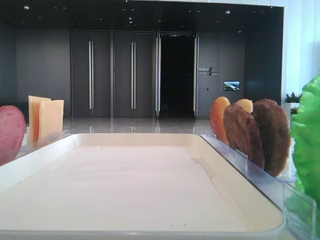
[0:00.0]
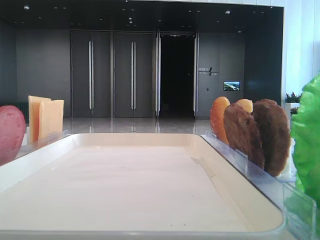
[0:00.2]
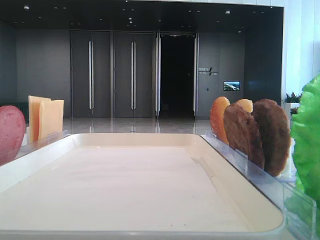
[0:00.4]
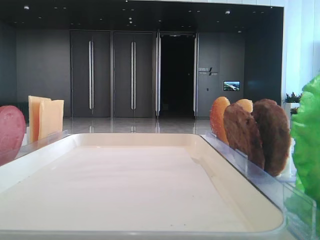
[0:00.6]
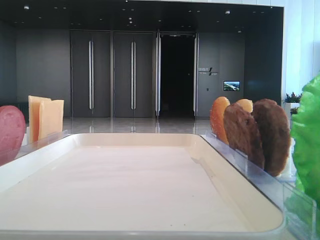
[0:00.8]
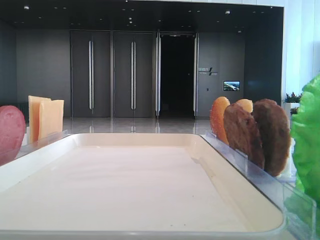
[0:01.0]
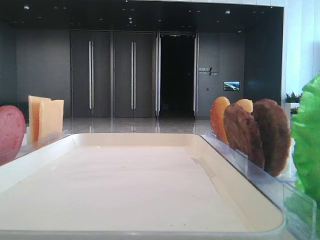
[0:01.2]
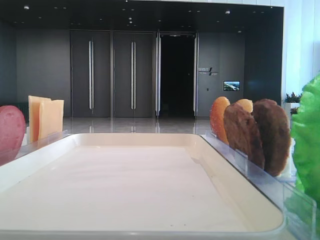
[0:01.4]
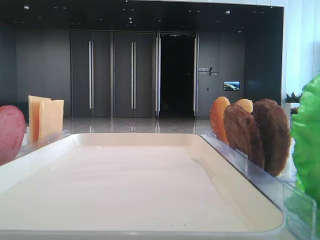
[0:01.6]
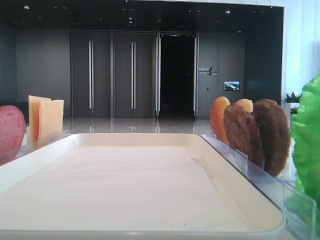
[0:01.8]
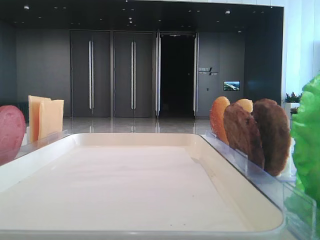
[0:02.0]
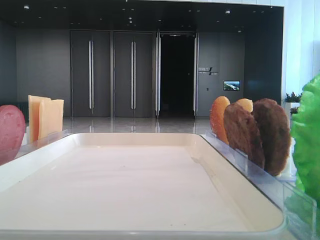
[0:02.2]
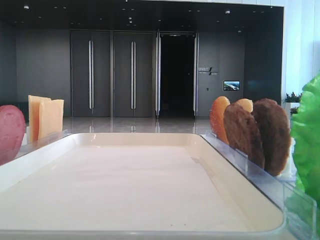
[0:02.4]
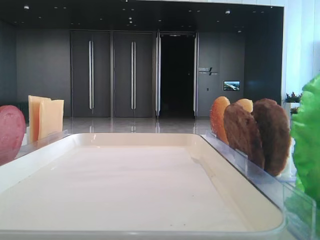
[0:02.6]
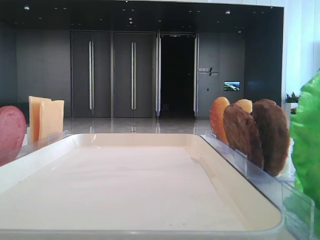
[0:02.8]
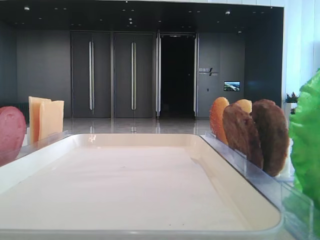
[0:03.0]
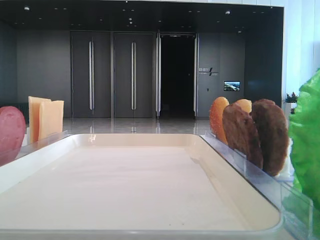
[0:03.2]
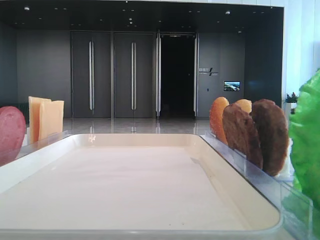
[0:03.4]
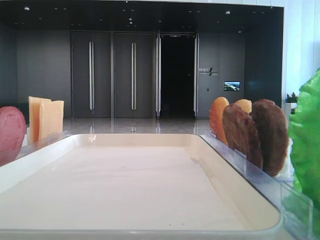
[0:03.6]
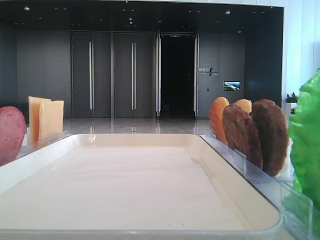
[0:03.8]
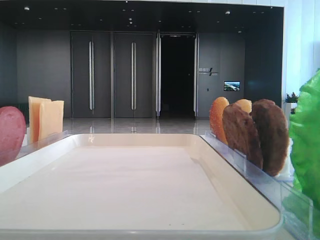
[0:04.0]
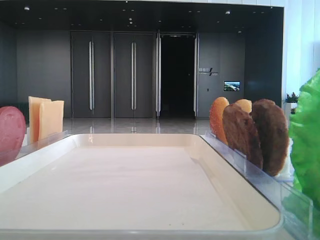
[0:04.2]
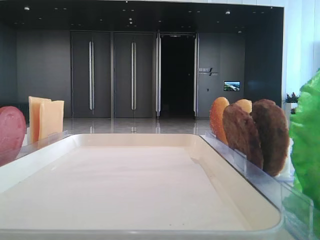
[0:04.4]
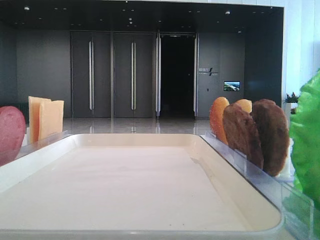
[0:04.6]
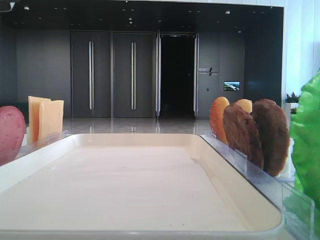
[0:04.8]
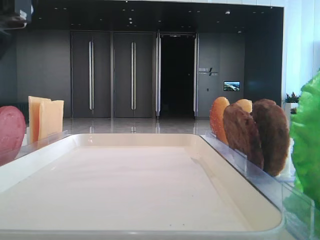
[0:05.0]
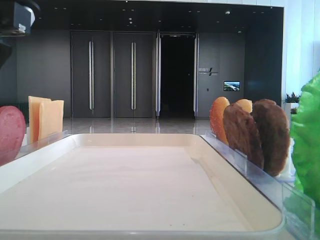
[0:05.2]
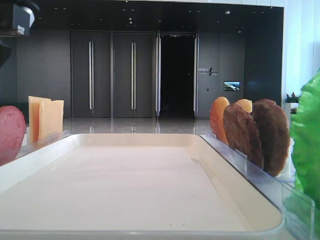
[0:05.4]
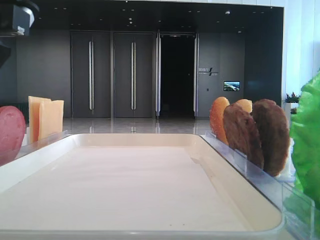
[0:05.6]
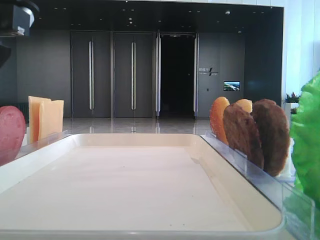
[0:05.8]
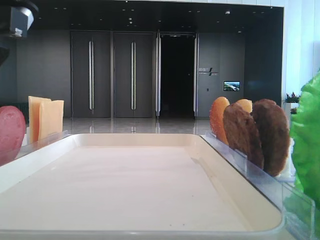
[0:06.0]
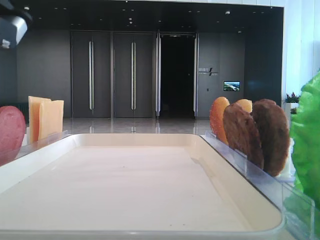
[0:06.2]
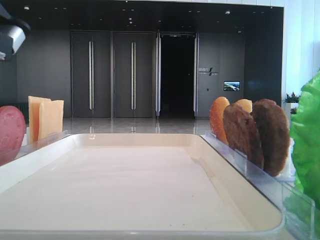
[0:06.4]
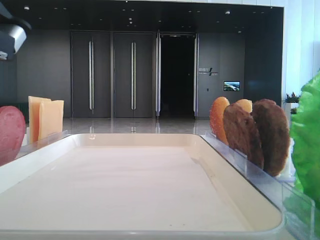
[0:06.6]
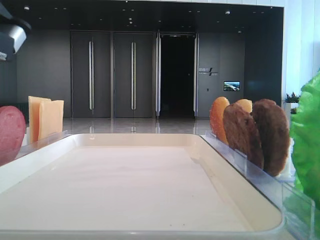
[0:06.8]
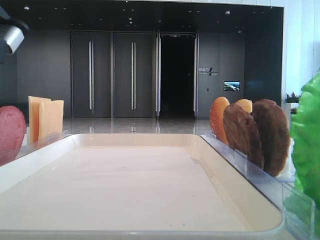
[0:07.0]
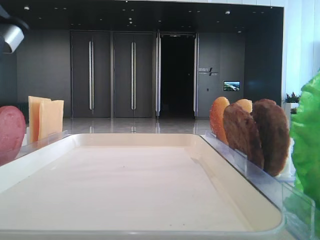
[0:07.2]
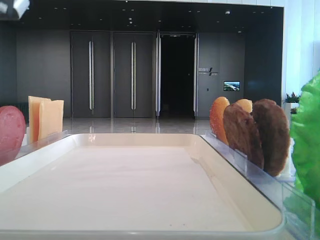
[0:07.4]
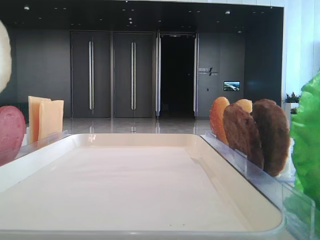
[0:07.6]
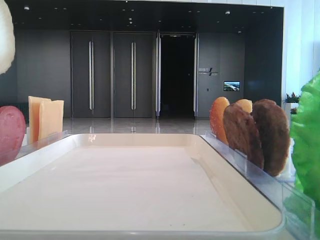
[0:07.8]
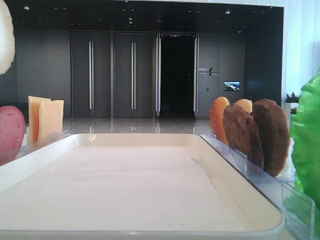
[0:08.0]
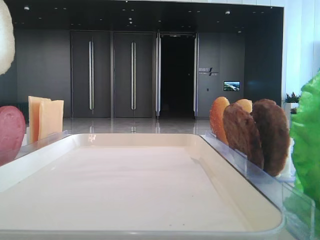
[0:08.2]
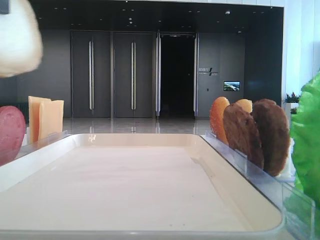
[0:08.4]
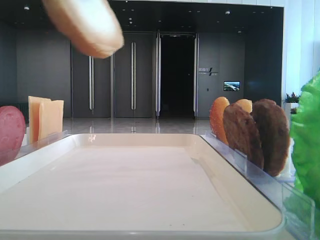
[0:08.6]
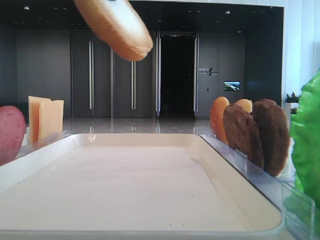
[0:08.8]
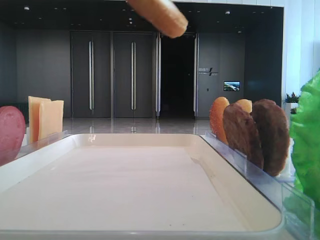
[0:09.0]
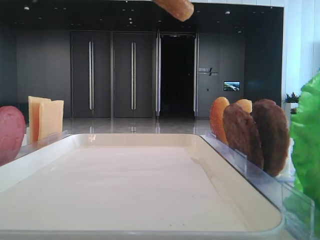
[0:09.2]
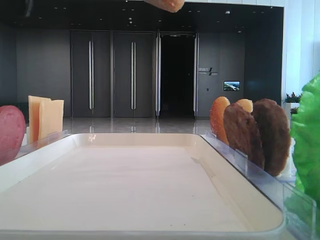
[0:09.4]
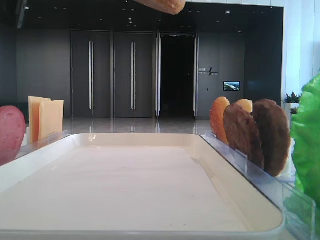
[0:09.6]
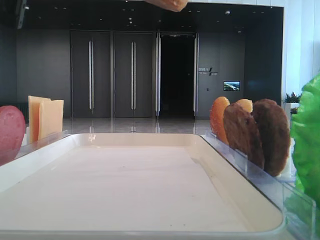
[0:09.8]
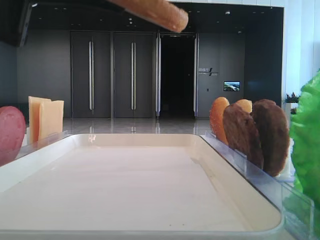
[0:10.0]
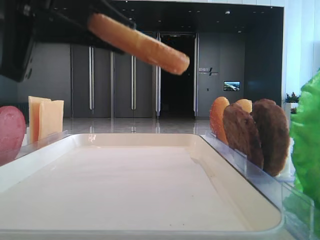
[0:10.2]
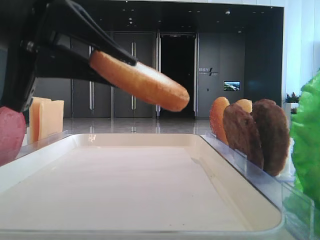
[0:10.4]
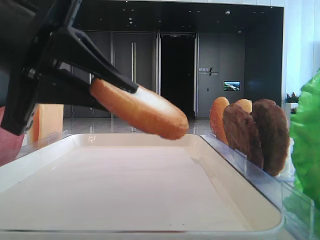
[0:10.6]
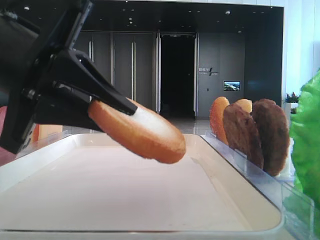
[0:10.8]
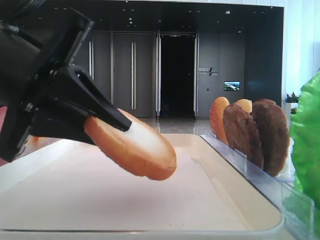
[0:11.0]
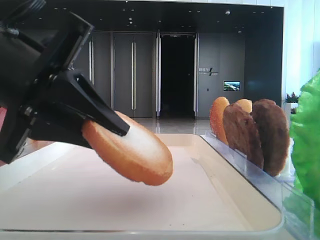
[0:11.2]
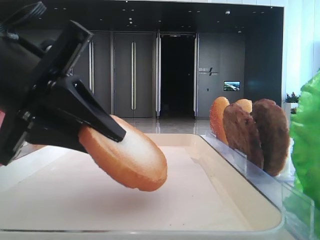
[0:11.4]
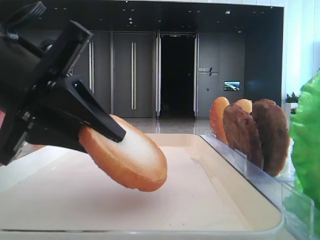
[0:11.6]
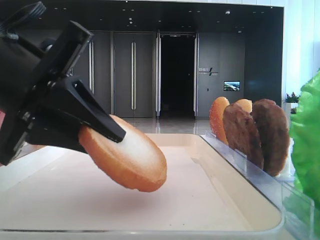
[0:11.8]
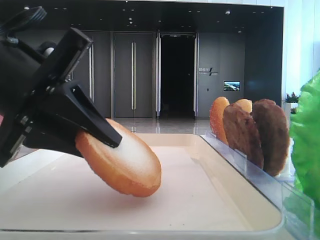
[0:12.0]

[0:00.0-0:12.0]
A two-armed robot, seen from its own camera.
Step, 0:00.0 to 0:07.0: Pick up the bottom bread with the left hand.
0:01.6 to 0:03.0: The left gripper heads forward and to the right, covering some 15 cm.
0:04.4 to 0:06.0: The grippers stay close to where they were, moving slightly.
0:06.0 to 0:07.6: The left gripper is displaced upward by some 10 cm, and closes its fingers.
0:07.6 to 0:09.0: The left gripper heads to the right, covering roughly 5 cm.
0:09.0 to 0:10.4: The left gripper travels downward by roughly 10 cm.

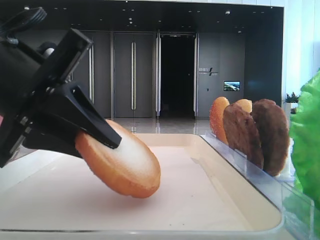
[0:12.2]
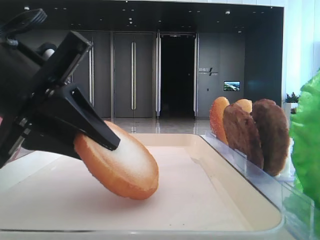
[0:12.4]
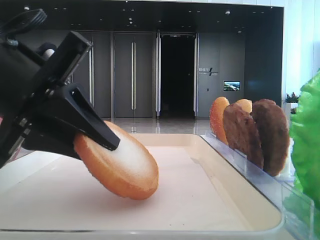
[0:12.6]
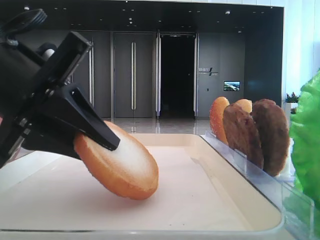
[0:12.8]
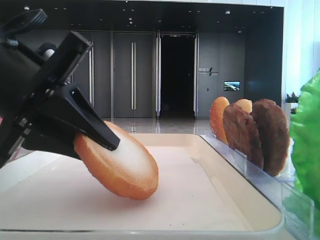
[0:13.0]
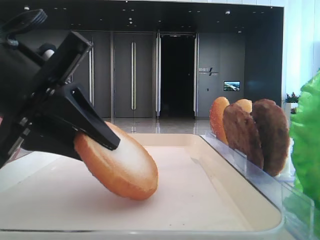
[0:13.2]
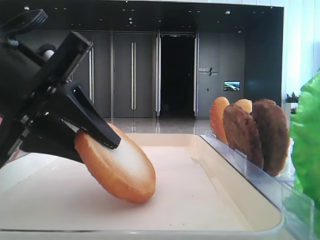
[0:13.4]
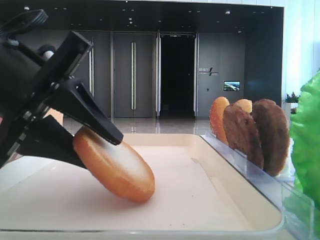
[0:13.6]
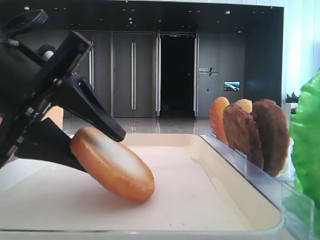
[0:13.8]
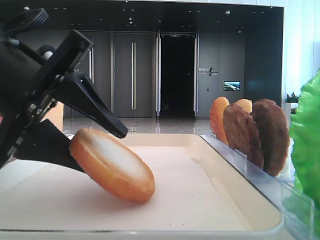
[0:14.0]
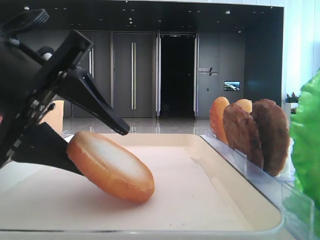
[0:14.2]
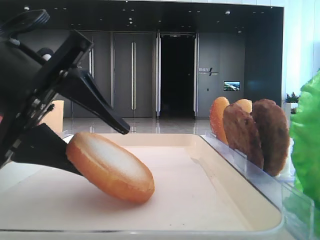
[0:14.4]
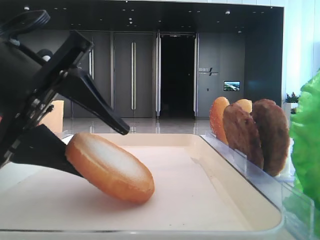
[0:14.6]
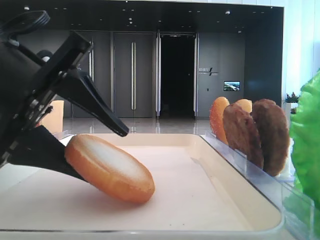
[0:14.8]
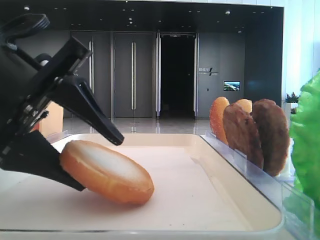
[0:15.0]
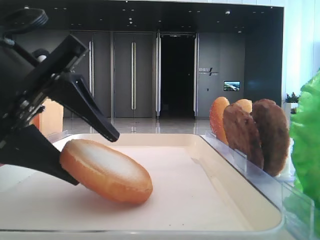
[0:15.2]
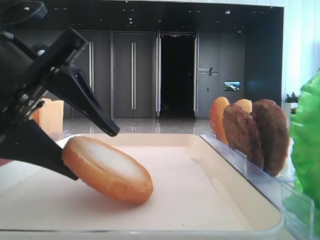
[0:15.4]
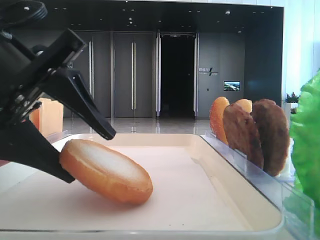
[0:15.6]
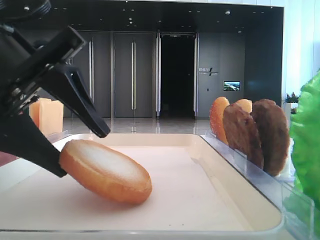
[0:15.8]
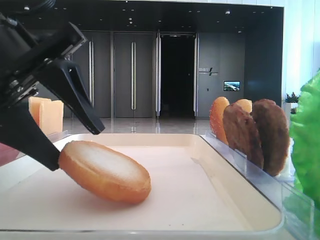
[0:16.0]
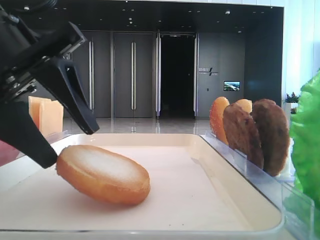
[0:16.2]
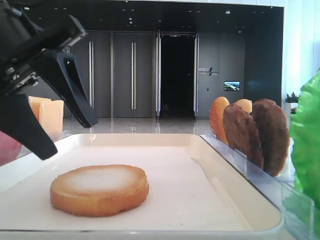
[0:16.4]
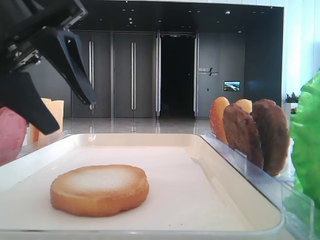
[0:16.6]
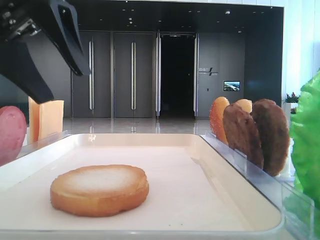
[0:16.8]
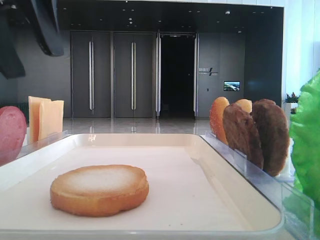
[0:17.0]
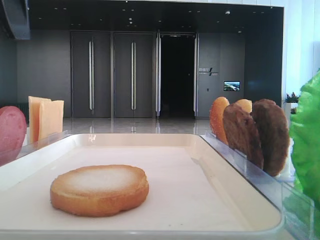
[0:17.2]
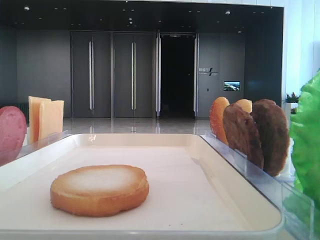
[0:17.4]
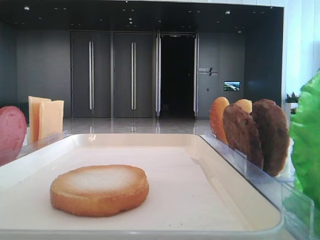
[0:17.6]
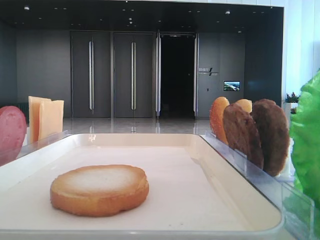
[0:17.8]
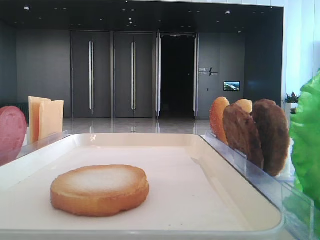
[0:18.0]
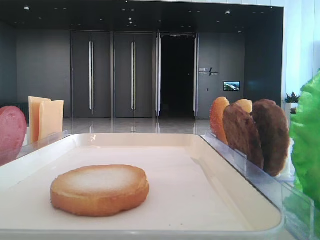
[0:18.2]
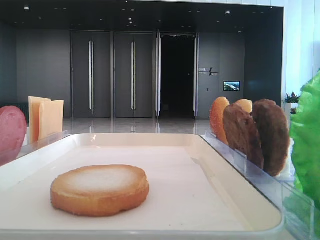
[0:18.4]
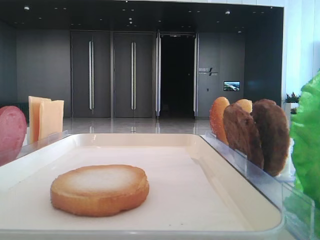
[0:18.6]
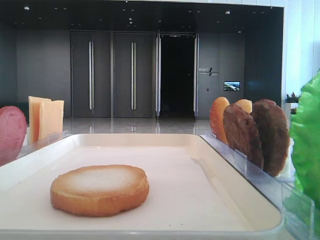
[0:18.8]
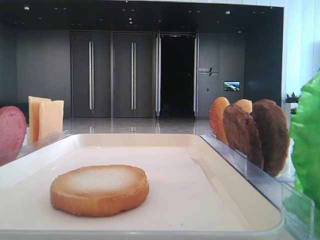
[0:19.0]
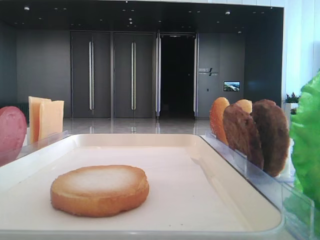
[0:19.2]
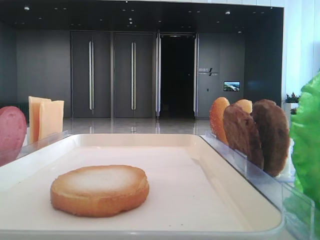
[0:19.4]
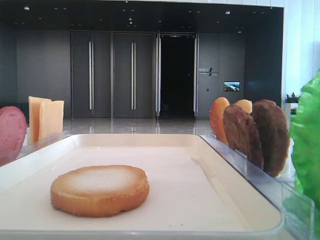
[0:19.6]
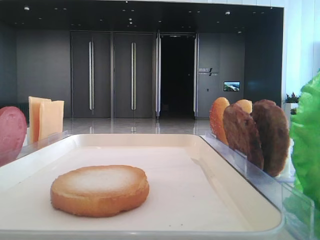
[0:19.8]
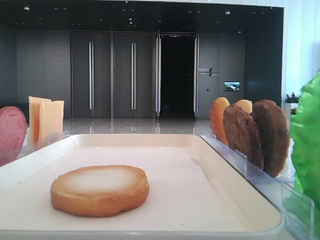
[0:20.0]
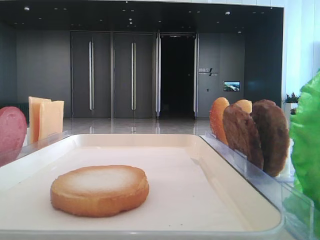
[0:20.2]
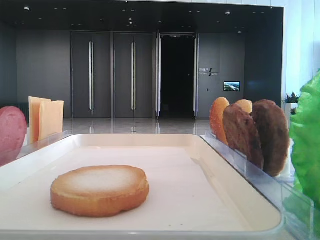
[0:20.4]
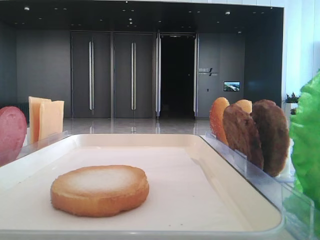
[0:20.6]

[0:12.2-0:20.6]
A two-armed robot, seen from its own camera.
Step, 0:12.2 to 0:16.2: Place the bread on the tray with the left hand.
0:12.2 to 0:13.6: The left gripper opens up.
0:13.6 to 0:15.0: The left gripper opens.
0:15.0 to 0:16.4: The left gripper changes place by approximately 5 cm.
0:16.4 to 0:17.8: The left gripper goes approximately 15 cm upward and to the left.

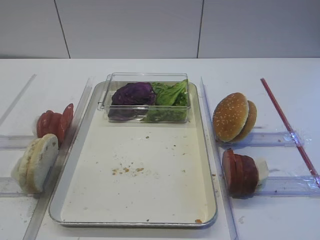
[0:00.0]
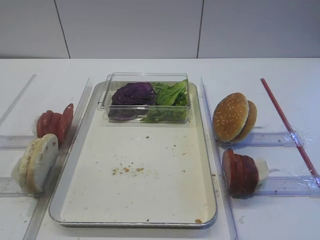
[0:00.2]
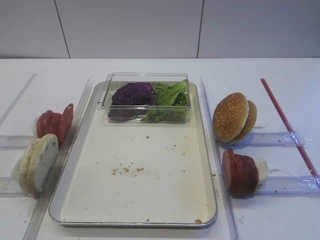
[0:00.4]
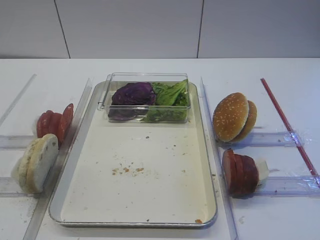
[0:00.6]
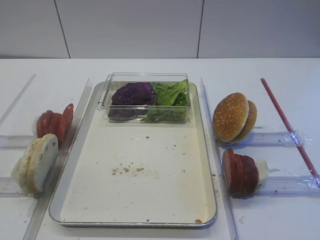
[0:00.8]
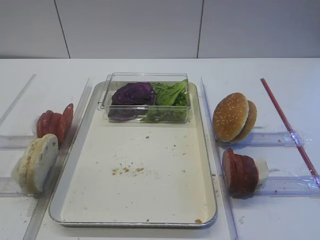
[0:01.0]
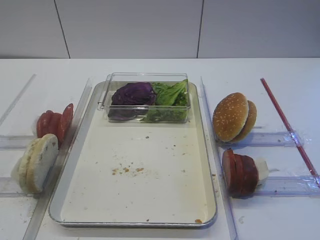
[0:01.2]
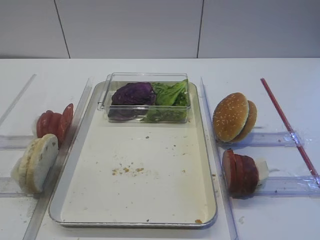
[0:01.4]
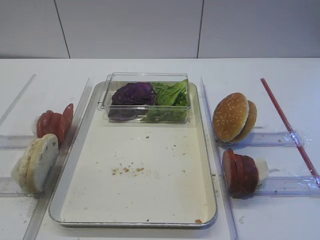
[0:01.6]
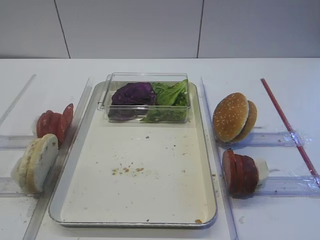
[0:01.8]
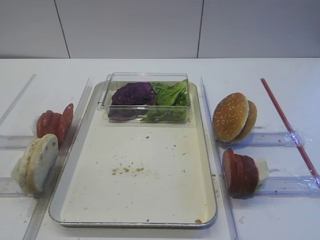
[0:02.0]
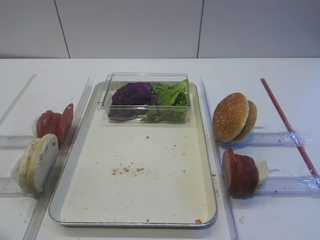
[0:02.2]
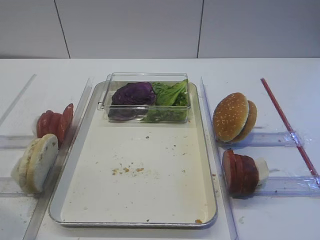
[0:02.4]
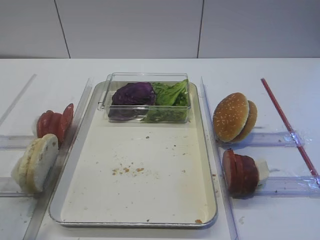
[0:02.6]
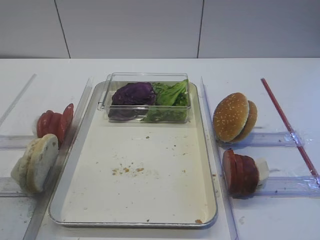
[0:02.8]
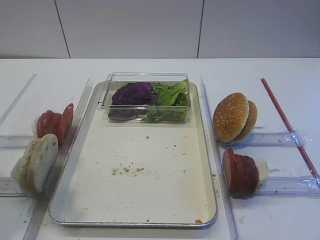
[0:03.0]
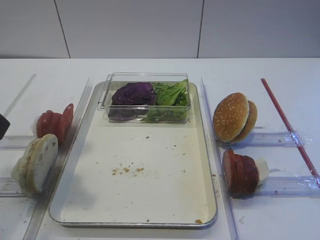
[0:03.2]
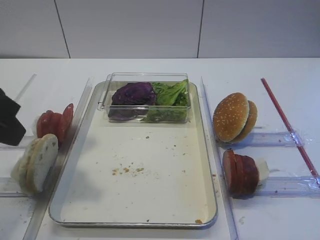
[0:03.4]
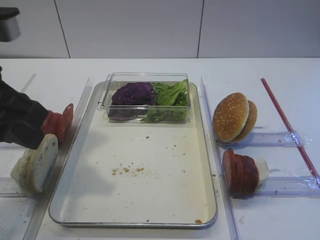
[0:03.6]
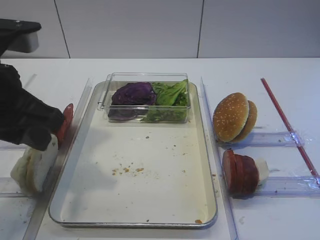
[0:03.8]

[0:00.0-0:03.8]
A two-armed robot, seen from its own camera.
0:01.2 to 0:02.6: The left gripper heads upward and forward, covering some 10 cm.
0:02.6 to 0:03.8: The left gripper is displaced forward and to the right by roughly 15 cm, and closes its fingers.
